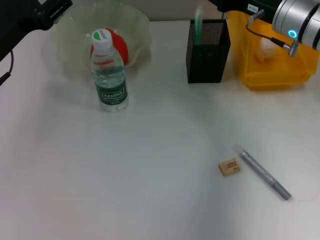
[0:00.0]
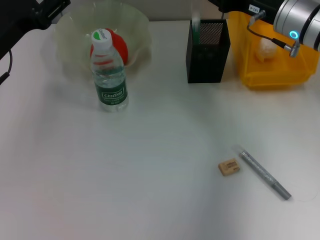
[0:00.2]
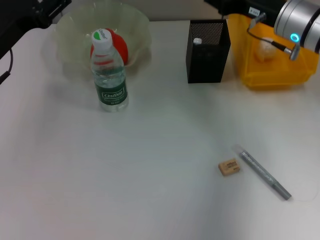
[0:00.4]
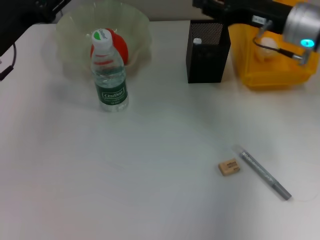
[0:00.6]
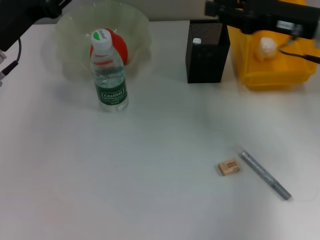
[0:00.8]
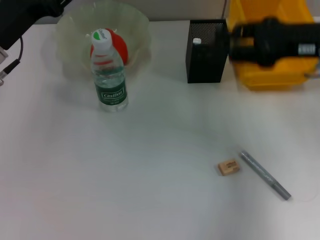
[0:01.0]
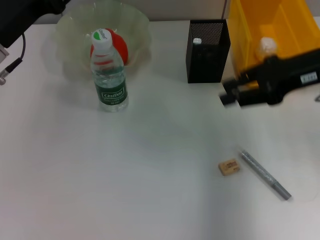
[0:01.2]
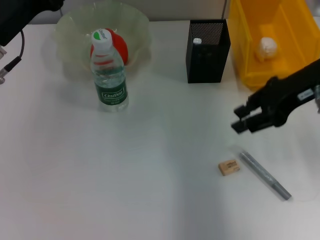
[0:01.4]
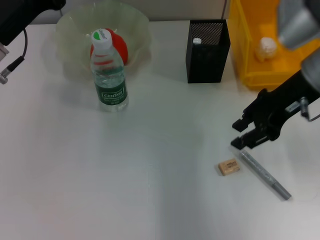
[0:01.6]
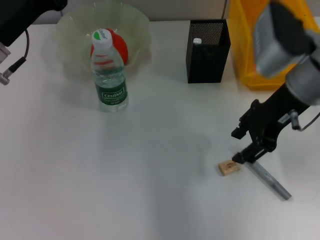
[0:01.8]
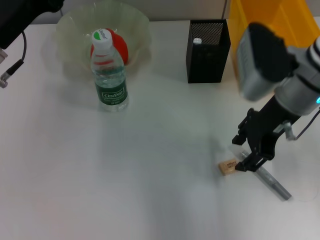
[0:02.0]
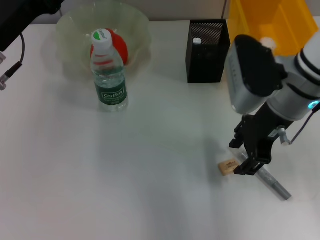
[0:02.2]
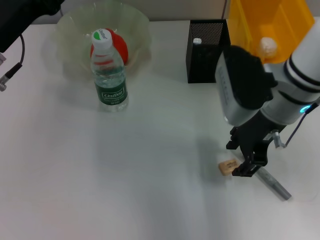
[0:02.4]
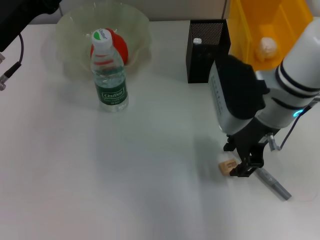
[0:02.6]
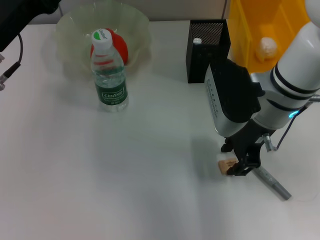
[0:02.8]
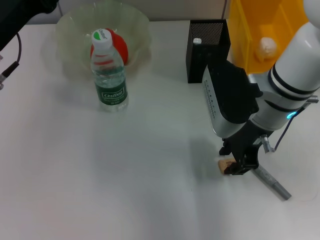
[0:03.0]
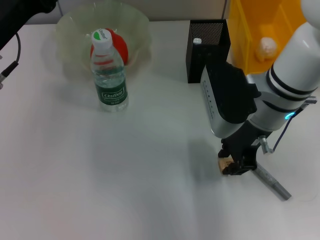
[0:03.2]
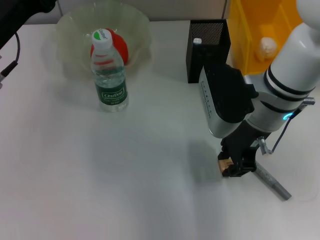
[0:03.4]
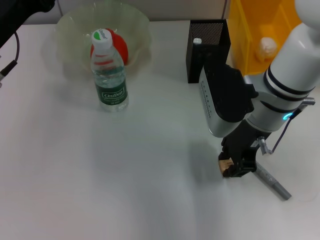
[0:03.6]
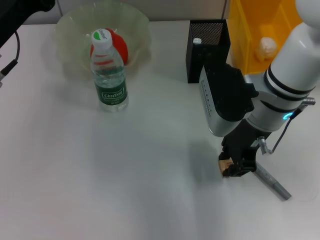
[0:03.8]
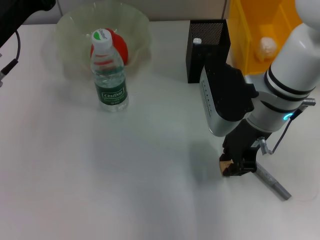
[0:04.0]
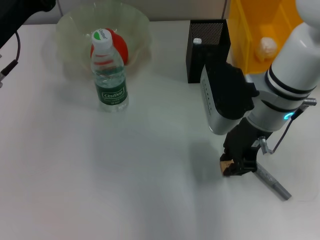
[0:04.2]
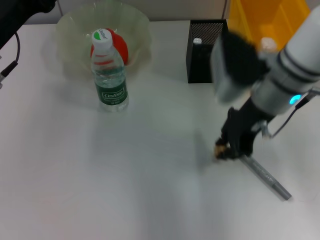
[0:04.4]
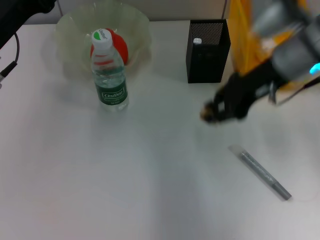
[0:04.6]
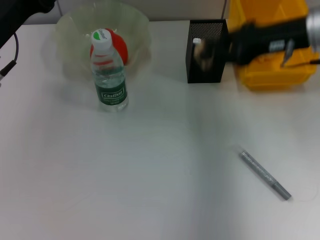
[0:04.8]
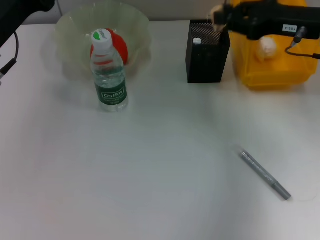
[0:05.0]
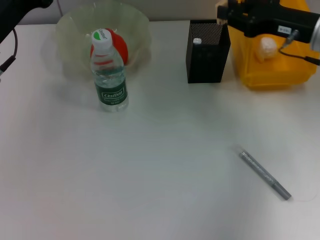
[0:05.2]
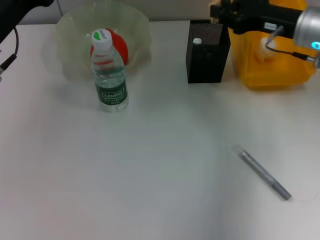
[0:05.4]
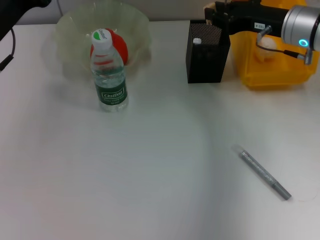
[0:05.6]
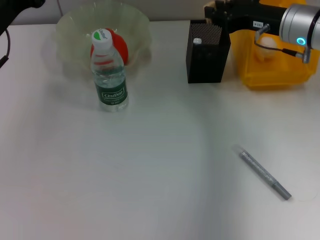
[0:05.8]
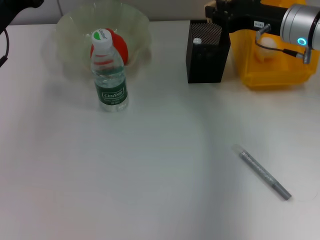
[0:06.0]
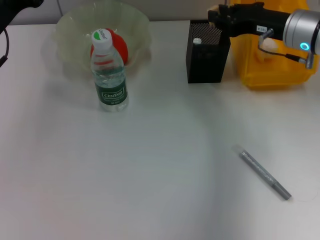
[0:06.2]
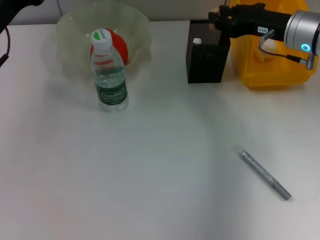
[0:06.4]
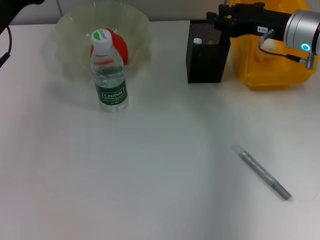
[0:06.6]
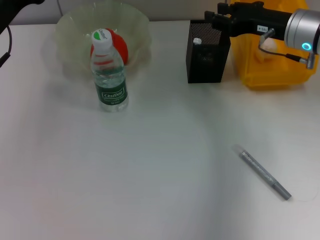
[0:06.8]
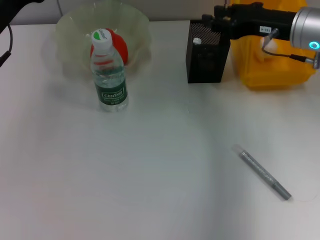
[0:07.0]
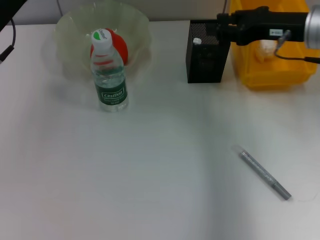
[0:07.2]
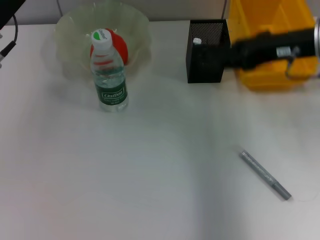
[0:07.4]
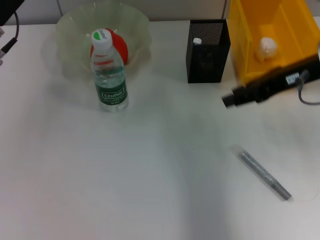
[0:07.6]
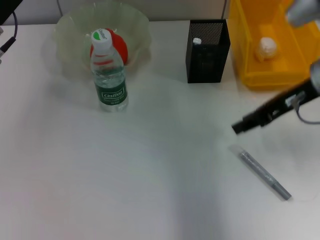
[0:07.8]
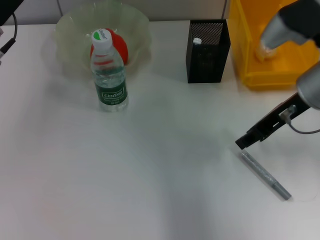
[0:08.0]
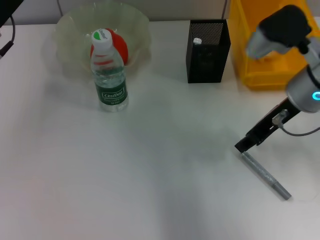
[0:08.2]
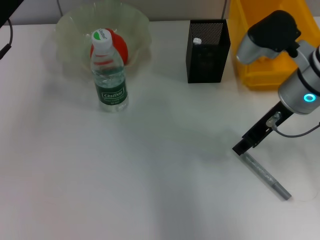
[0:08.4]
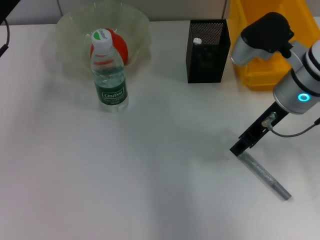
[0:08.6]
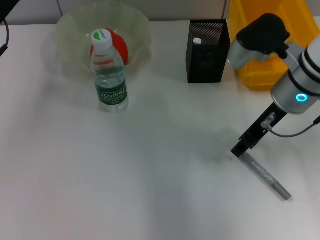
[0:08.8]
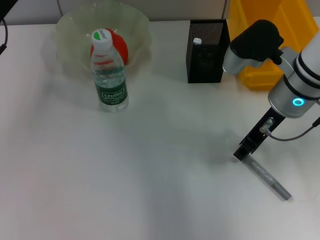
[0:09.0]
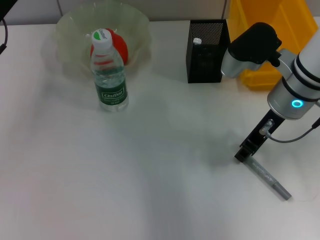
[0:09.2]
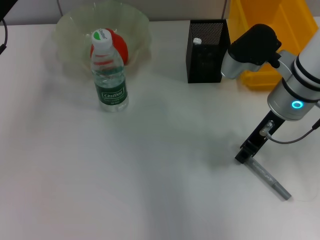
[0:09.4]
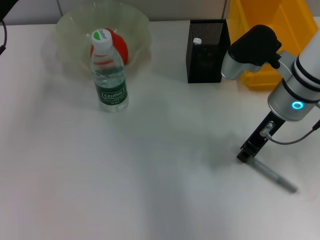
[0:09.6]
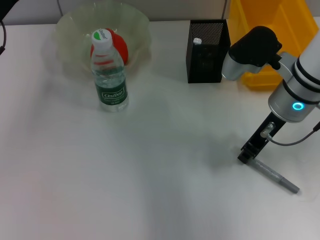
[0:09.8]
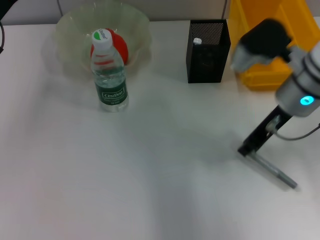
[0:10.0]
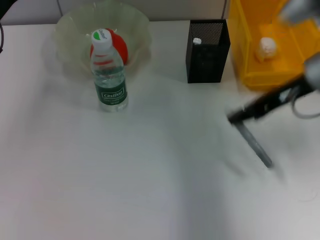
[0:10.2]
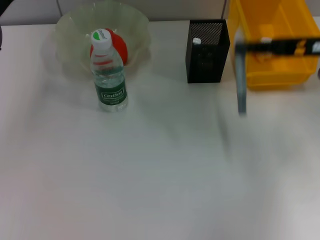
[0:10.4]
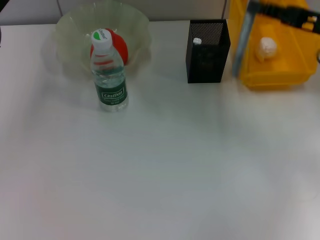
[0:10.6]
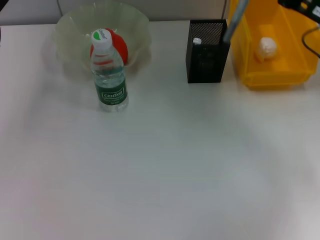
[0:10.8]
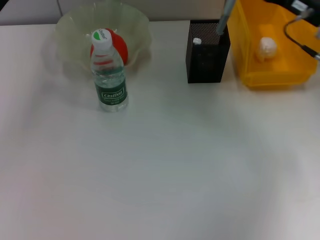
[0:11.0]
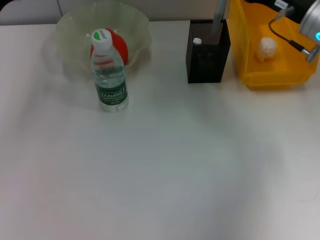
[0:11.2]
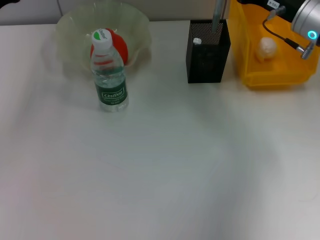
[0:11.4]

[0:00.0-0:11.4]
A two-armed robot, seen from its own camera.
Step, 0:00.6 to 0:04.0: Grab the eraser with the right hand.
Step, 0:04.2 to 0:06.8: Put the eraser into the pen holder with the right hand.
Step, 0:07.0 to 0:09.4: Grab the gray glue with the right hand.
0:00.0 to 0:01.4: The right gripper travels backward and upward by about 10 cm.
0:01.4 to 0:02.8: The right gripper goes approximately 10 cm to the left and downward, and opens up.
0:02.8 to 0:04.2: The right gripper closes.
0:04.2 to 0:05.6: The right gripper shifts roughly 10 cm to the right and forward.
0:05.6 to 0:07.2: The right gripper changes place by approximately 5 cm.
0:07.2 to 0:08.6: The right gripper is displaced to the left by some 5 cm.
0:08.6 to 0:10.0: There are only small adjustments of the grippers.
0:10.0 to 0:11.4: The right gripper heads forward, covering about 5 cm.

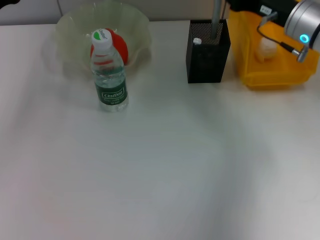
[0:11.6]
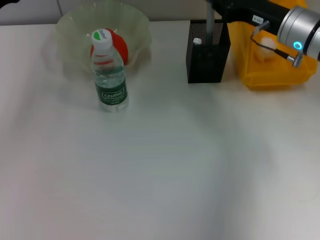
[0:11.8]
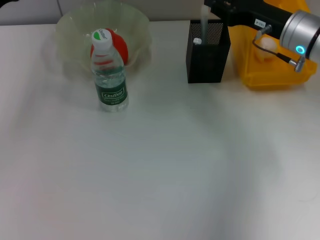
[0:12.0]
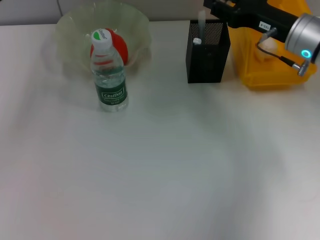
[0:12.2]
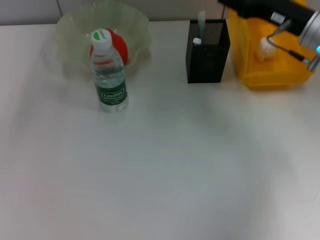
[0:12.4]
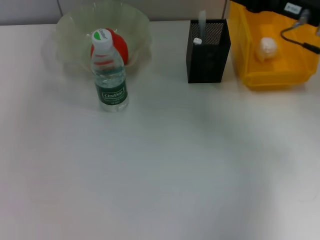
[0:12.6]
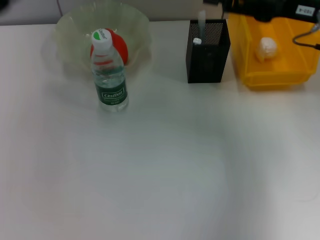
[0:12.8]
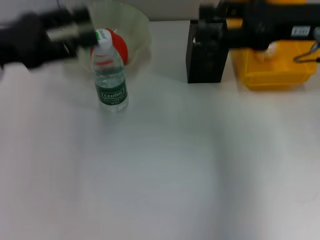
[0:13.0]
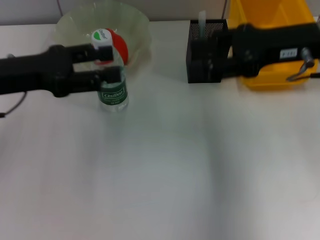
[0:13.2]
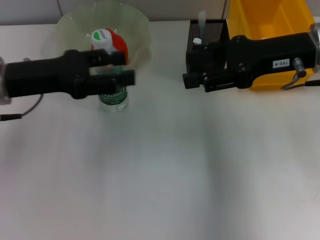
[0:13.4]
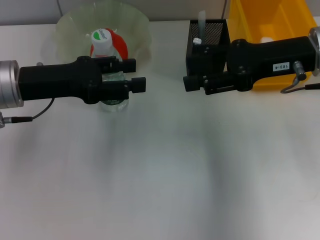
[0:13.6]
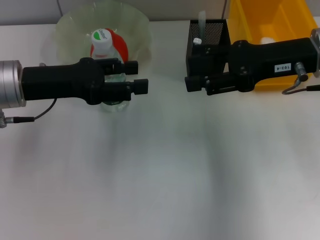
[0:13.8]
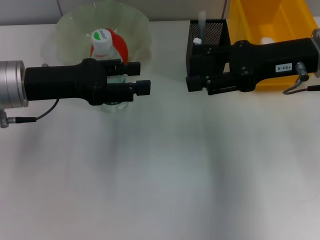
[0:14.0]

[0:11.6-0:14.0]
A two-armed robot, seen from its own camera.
0:11.6 to 0:12.8: The right gripper heads upward and backward, covering approximately 10 cm, and opens its fingers.
0:12.8 to 0:14.0: The left gripper goes some 5 cm to the right.

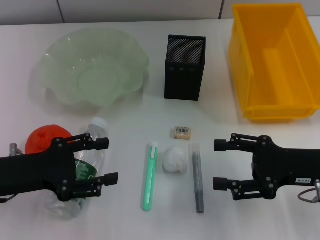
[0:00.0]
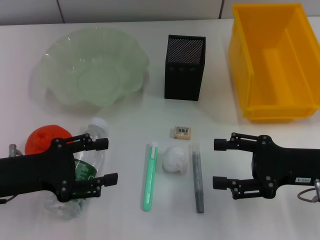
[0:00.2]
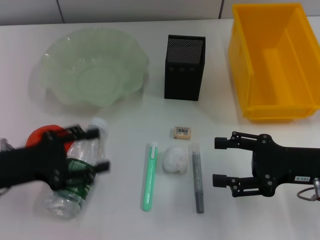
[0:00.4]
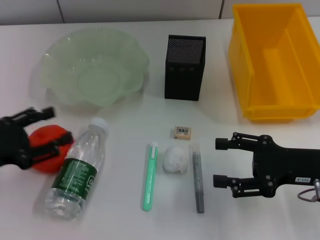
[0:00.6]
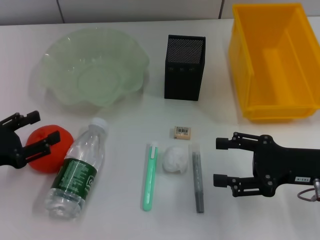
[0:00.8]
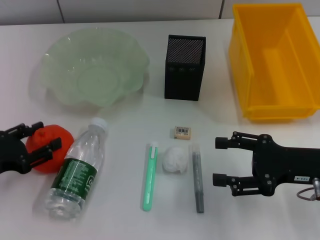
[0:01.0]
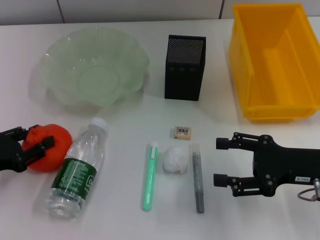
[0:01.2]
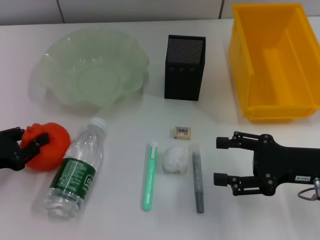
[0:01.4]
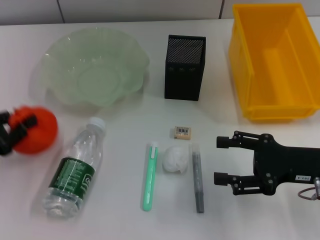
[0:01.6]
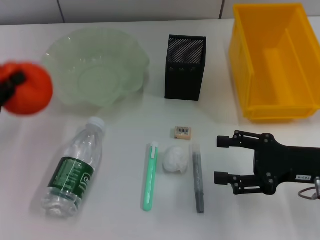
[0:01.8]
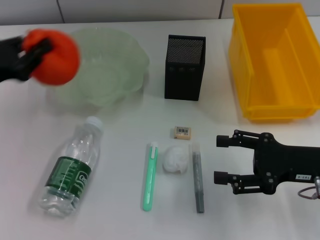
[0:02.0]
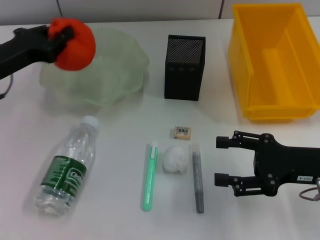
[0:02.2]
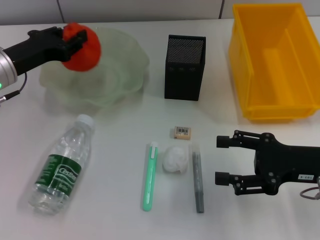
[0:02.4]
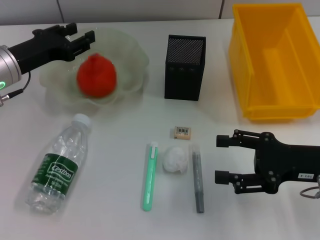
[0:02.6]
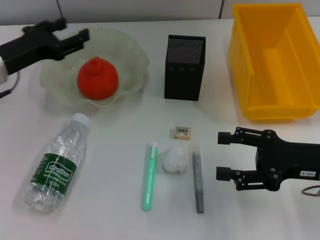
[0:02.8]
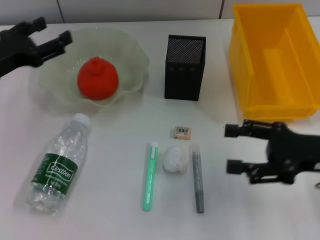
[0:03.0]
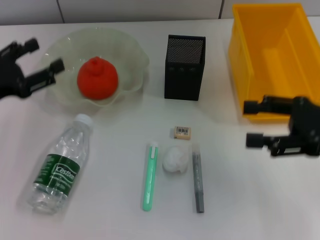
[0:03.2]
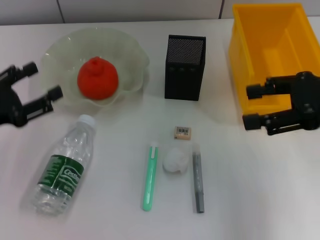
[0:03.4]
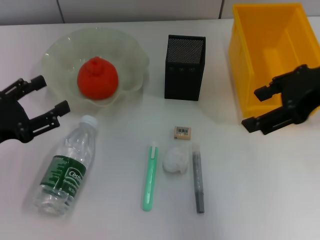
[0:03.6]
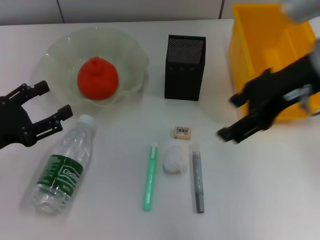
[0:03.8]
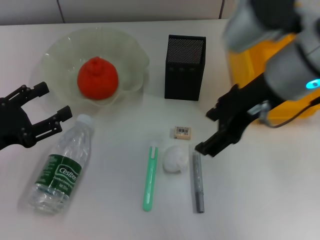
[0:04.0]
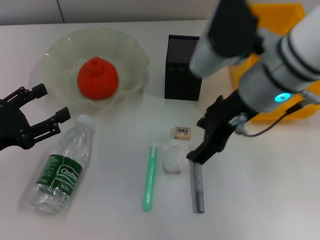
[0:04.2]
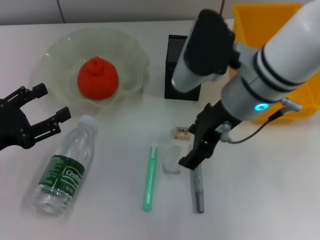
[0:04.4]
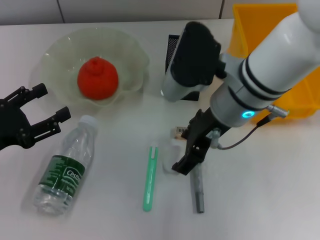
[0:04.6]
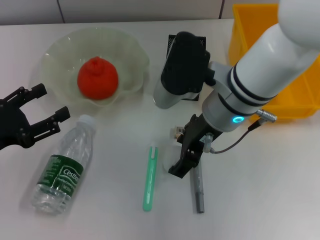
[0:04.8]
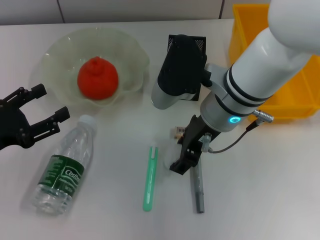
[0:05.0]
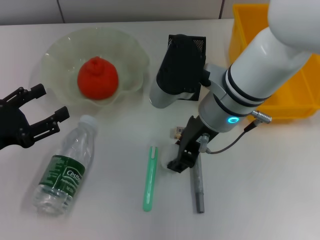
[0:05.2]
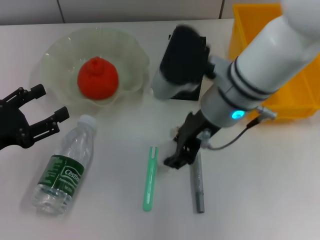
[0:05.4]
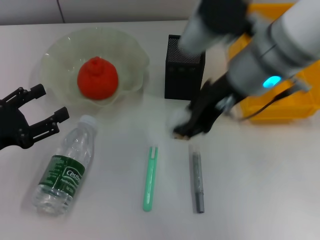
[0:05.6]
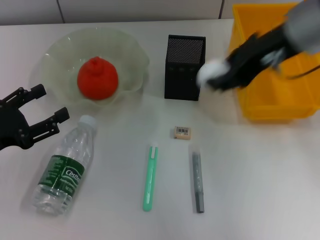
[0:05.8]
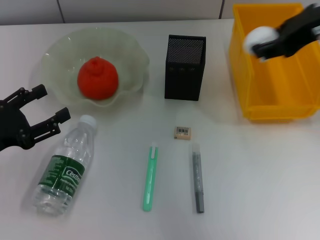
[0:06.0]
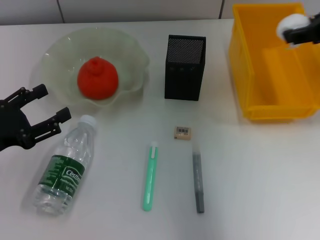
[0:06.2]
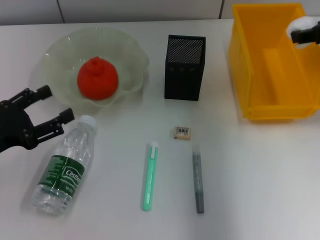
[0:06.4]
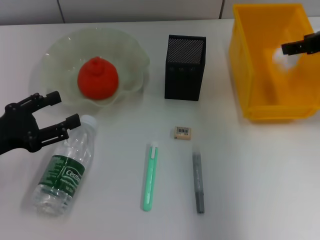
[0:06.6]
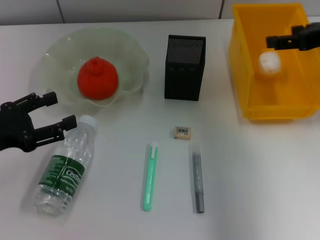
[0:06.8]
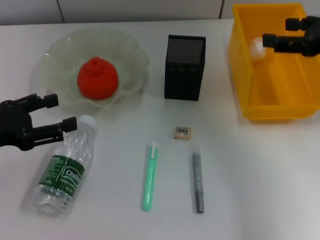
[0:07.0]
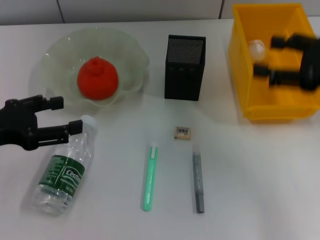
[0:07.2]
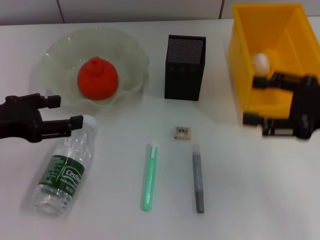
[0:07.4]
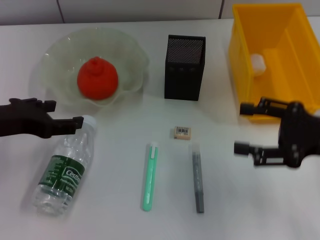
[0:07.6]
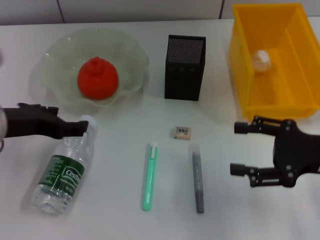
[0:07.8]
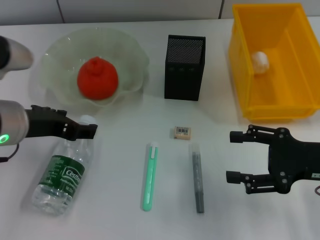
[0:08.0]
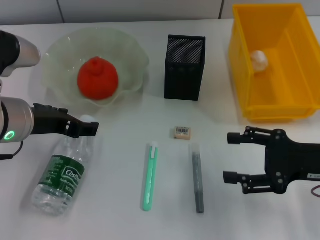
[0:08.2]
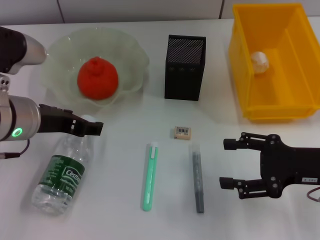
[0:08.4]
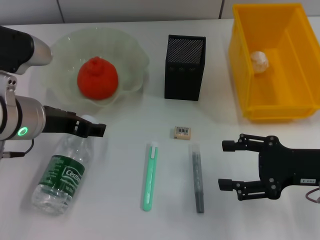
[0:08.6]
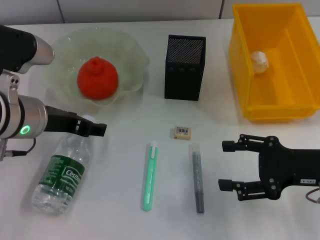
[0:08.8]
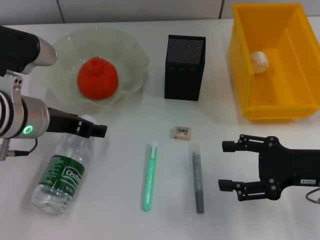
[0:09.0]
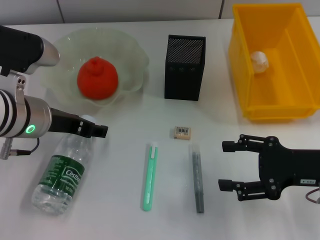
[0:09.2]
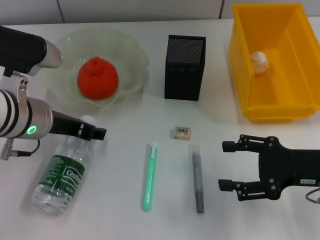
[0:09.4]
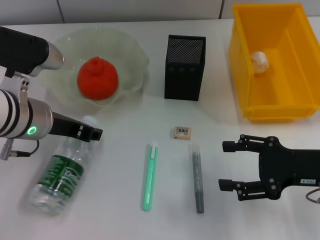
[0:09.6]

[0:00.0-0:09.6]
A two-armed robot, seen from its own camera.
Step, 0:00.0 to 0:01.2: Grab the orange with the left hand.
Step, 0:01.4 to 0:02.6: Place the orange into the fruit bowl with the left hand.
Step, 0:03.0 to 0:05.0: Grab the paper ball with the right hand.
Step, 0:05.2 to 0:07.0: Place the paper ball into the trash can with the right hand.
0:00.0 to 0:01.6: The left gripper goes roughly 10 cm to the left, and closes.
0:01.6 to 0:03.2: The left gripper travels forward by approximately 5 cm, and opens its fingers. Meanwhile the right gripper moves upward, roughly 10 cm.
0:03.2 to 0:04.8: The right gripper heads to the left, covering about 20 cm, while the left gripper moves roughly 5 cm.
0:04.8 to 0:06.4: The right gripper travels to the right by approximately 20 cm, and closes up.
0:06.4 to 0:08.0: The left gripper is displaced to the right and upward by some 15 cm. Meanwhile the right gripper moves downward and backward, some 20 cm, and opens its fingers.
0:08.0 to 0:09.6: There are only small adjustments of the grippers.
